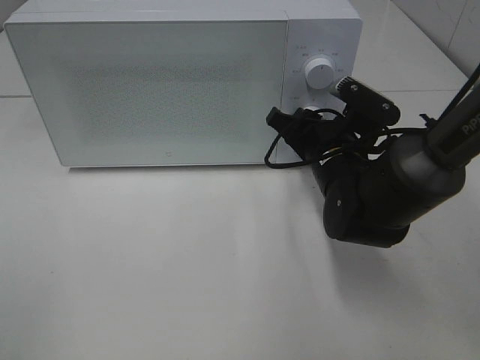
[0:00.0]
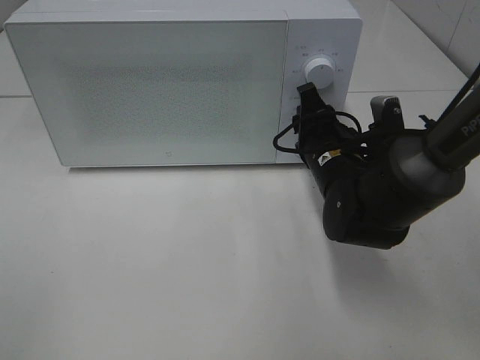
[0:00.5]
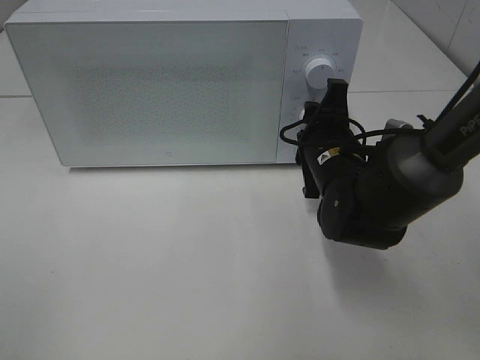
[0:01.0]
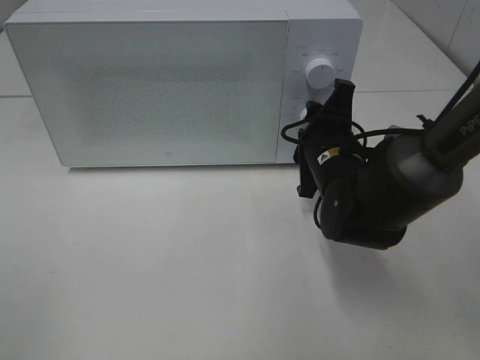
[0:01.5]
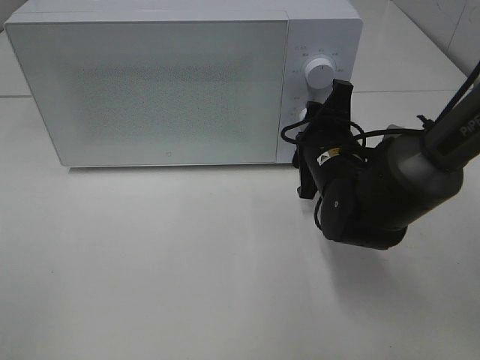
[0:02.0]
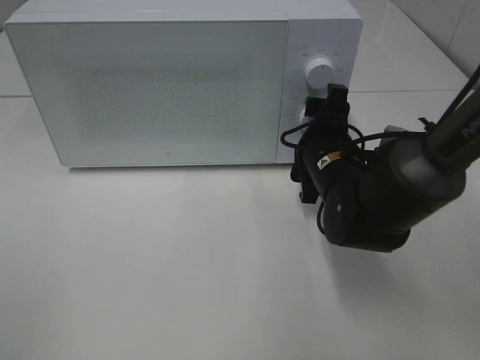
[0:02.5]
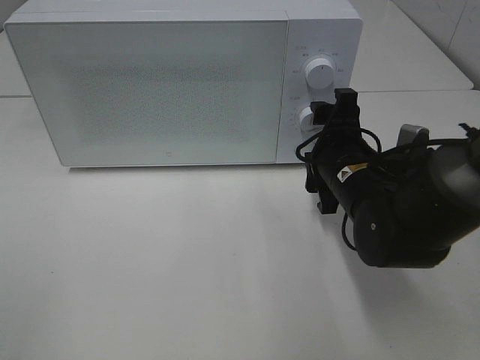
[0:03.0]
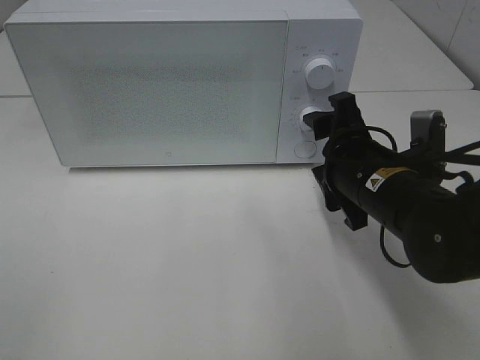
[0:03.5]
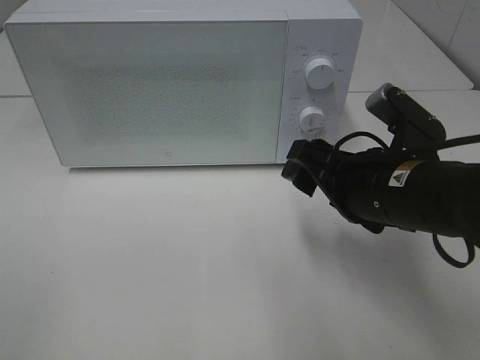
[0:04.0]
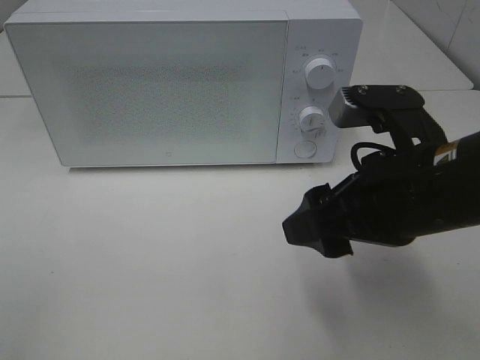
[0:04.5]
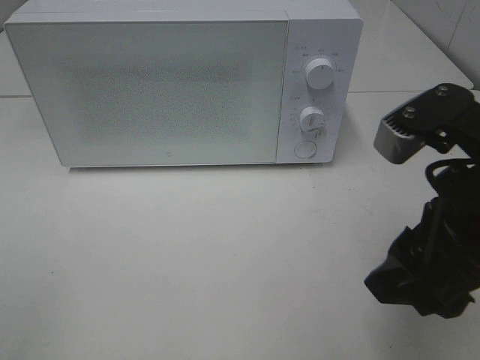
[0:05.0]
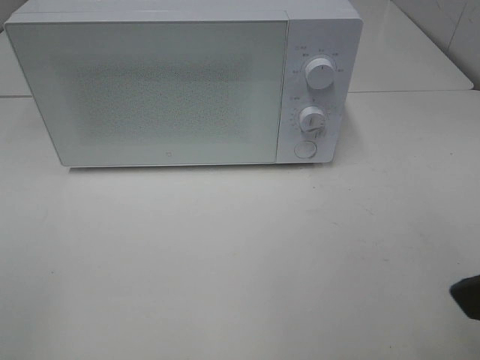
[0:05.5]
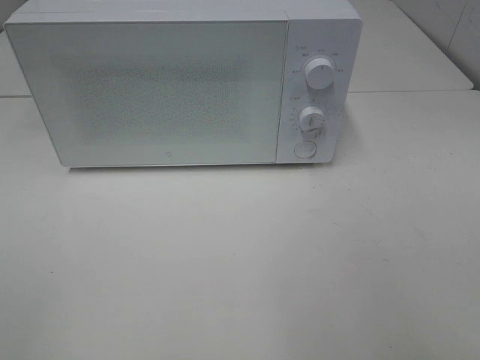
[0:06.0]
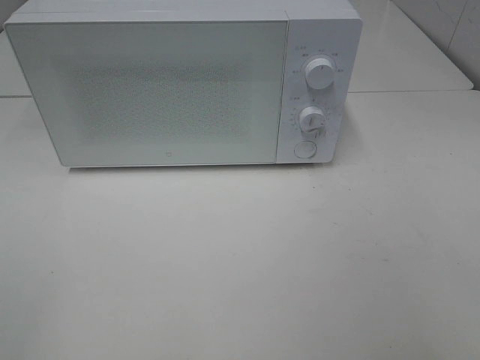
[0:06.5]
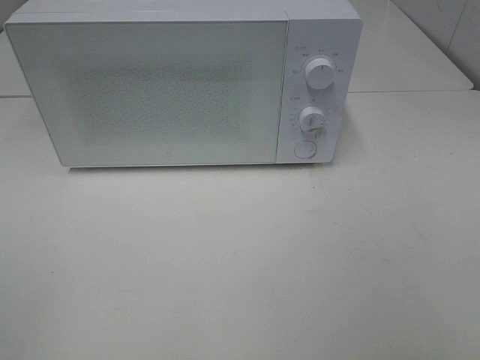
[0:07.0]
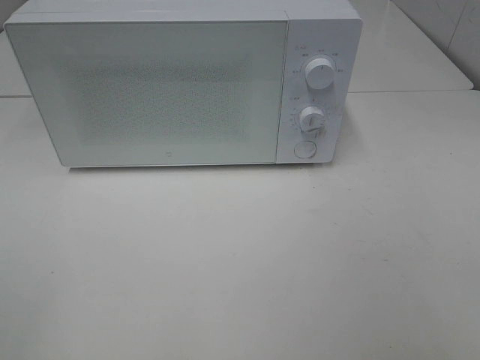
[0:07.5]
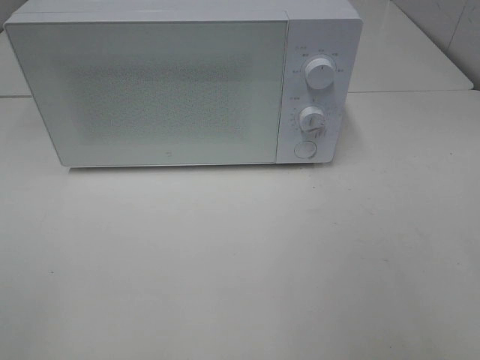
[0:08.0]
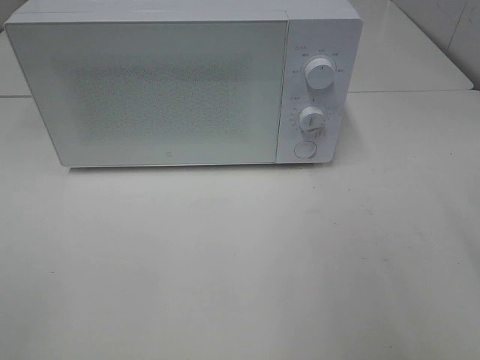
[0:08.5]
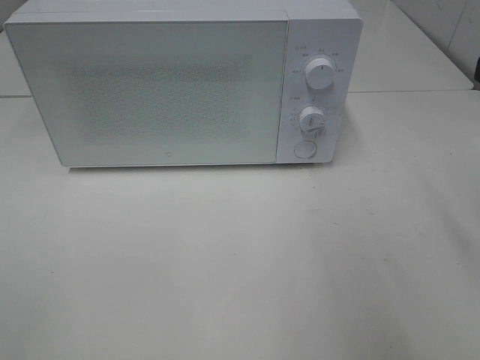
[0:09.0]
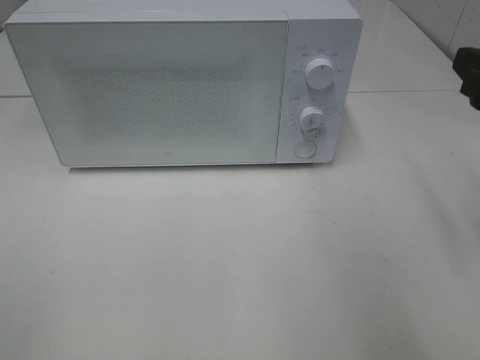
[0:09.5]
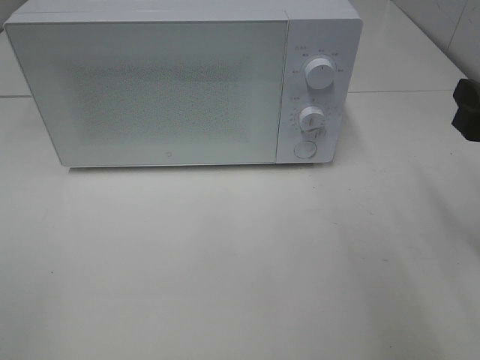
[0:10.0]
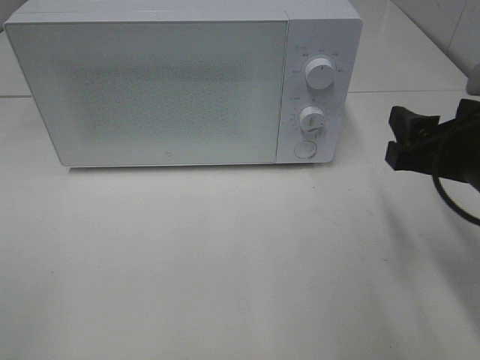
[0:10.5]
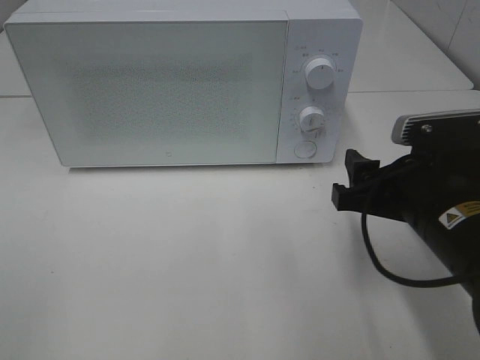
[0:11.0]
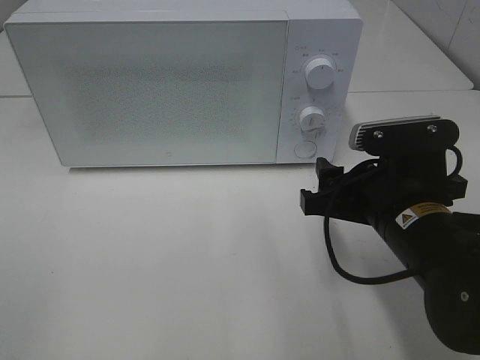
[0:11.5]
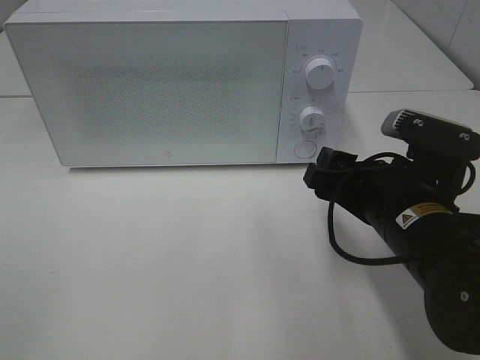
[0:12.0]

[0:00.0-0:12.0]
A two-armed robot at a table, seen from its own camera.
Task of the whole recording: Heat Sandwich.
Step, 0.0 to 3.0 s: Right hand: twist timer button.
2.0 to 4.0 s: The right gripper heads backward and upward, covering some 10 cm.
4.0 to 6.0 s: The right gripper shifts some 25 cm backward, upward and to the right.
8.0 to 10.0 s: The right gripper heads forward and downward, covering about 15 cm.
10.0 to 12.0 s: The right gripper is displaced to the left and downward by approximately 15 cm.

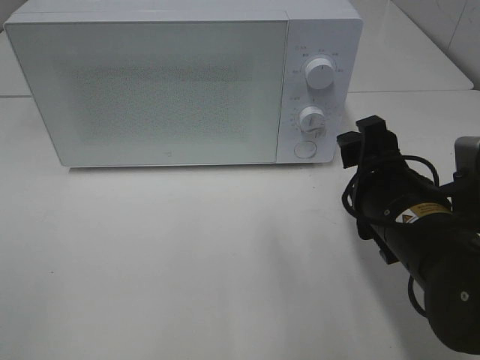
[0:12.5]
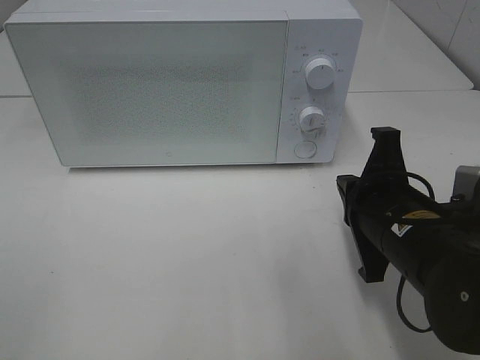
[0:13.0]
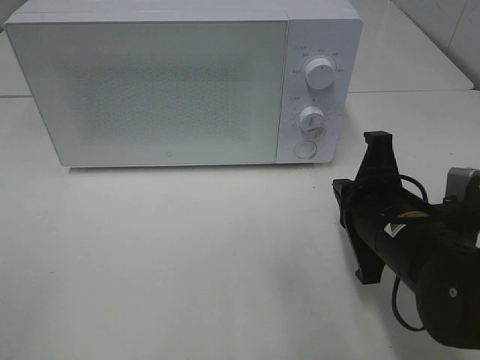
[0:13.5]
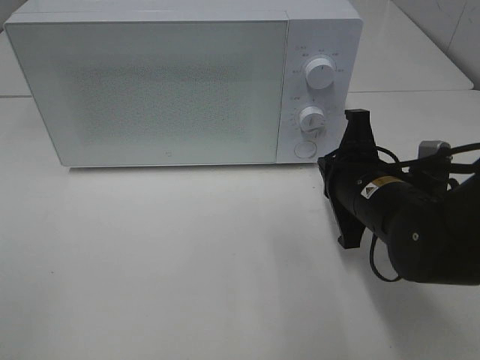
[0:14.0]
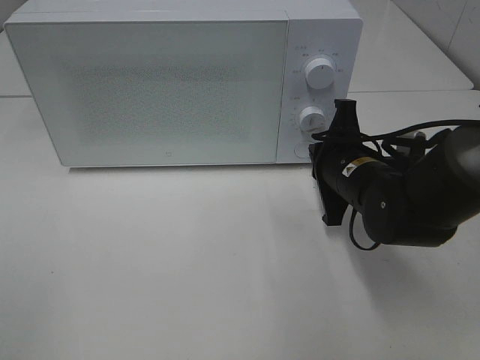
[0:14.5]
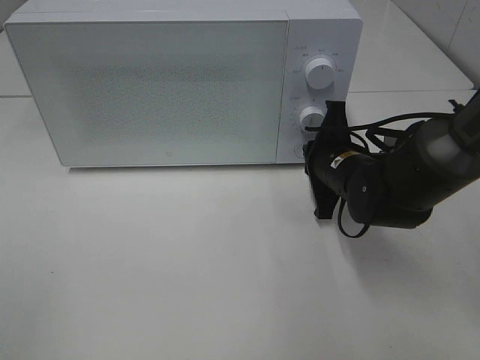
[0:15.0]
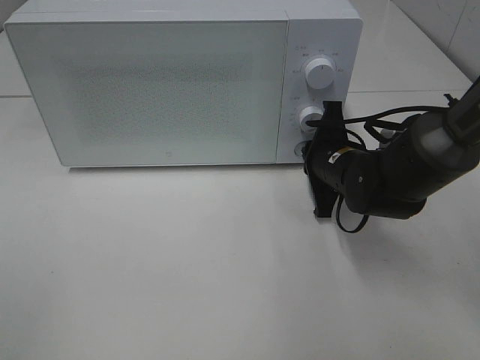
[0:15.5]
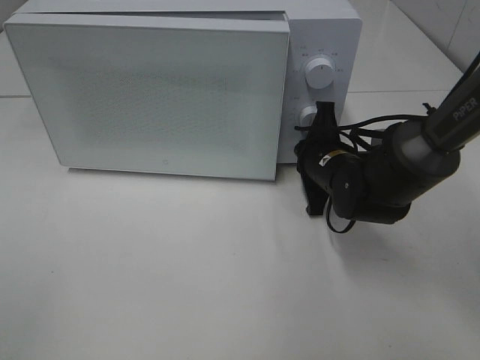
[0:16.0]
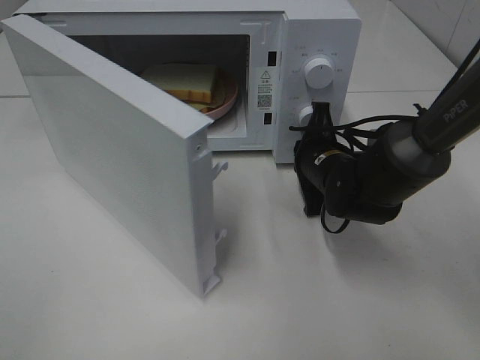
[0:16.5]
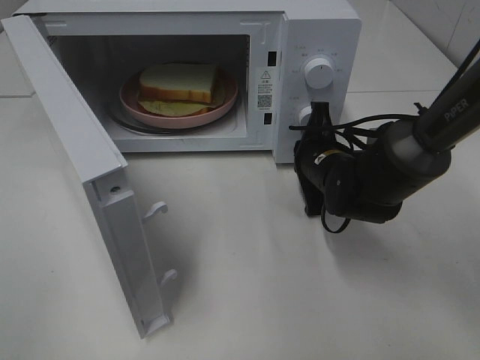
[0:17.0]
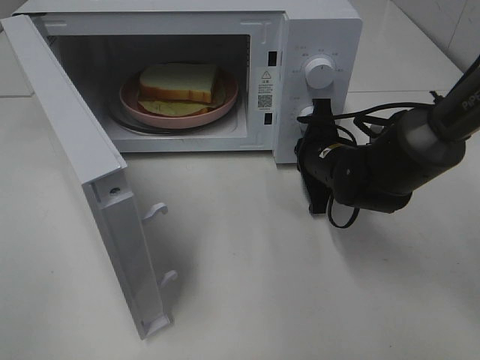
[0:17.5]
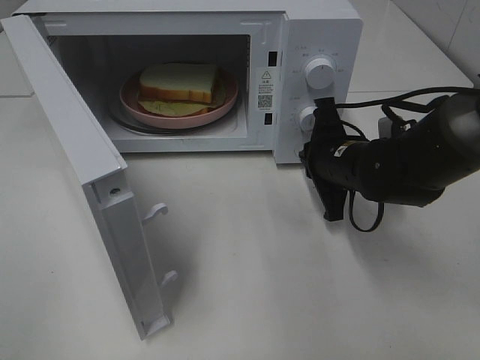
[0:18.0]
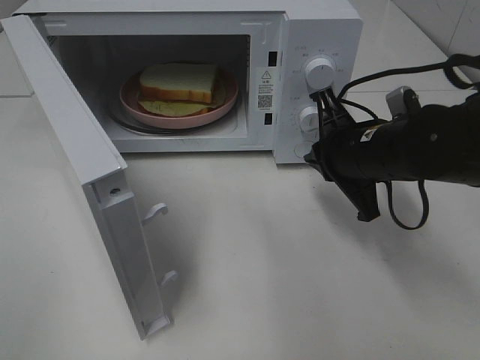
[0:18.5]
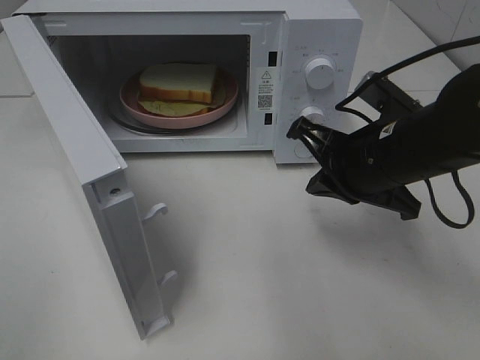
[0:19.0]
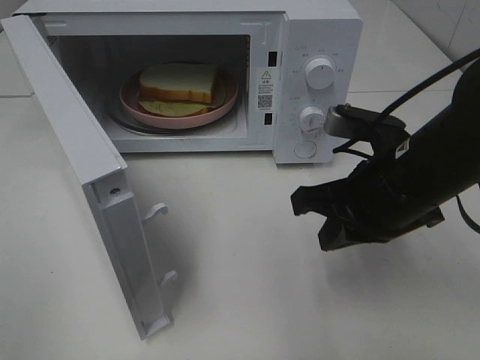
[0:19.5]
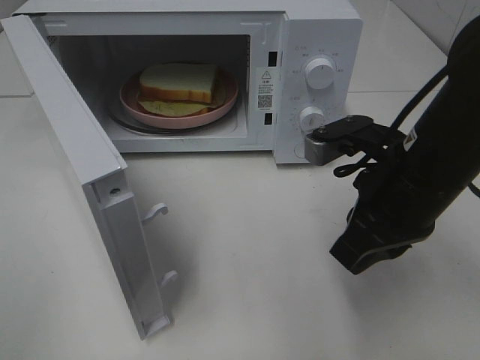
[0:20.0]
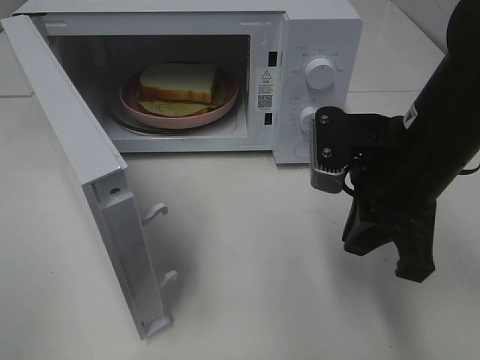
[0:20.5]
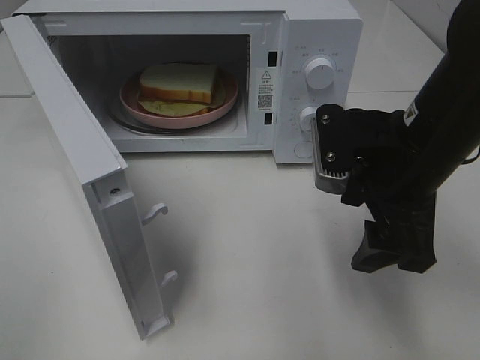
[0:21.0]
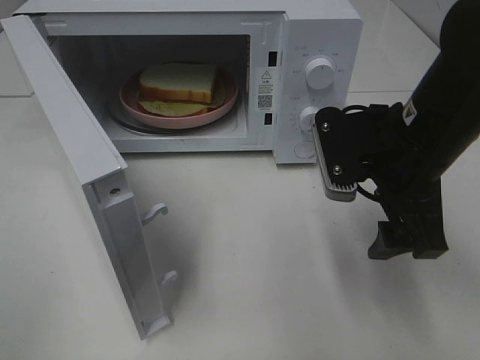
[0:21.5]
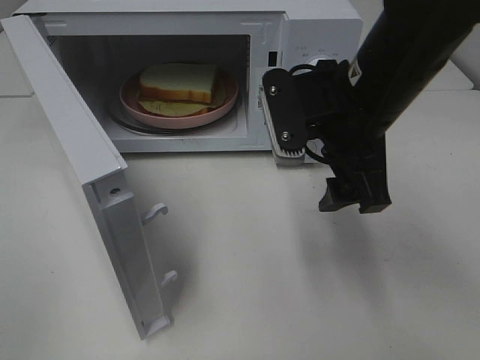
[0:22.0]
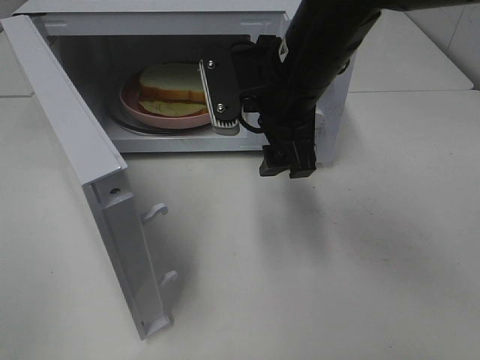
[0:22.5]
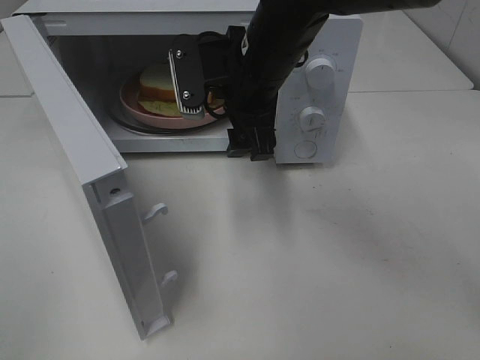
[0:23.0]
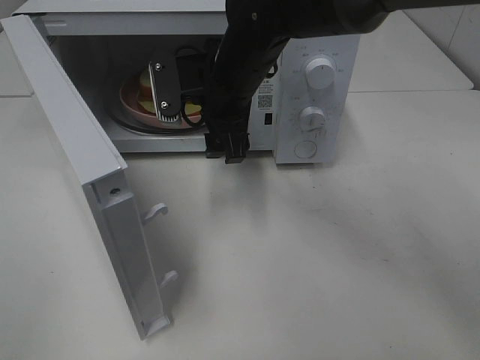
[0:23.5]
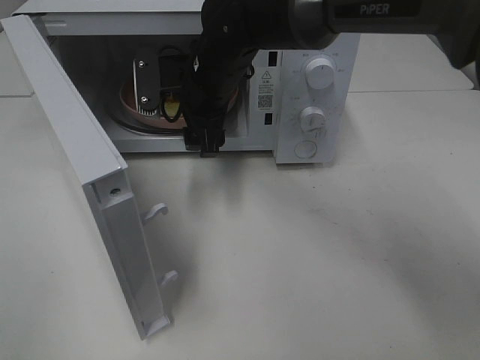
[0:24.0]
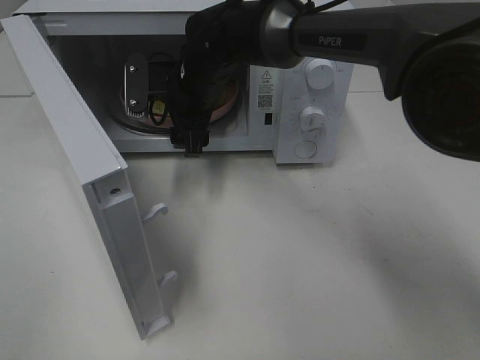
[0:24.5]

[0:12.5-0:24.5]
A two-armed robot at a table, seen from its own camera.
Task of the whole recording: Heat Sandwich.
Step, 12.5 to 17.5 s: Right hand: press the switch.
12.5 to 14.5 s: The right gripper travels forward by approximately 10 cm, and closes up.
14.5 to 16.5 s: The right gripper moves forward, roughly 5 cm.
16.5 to 18.5 s: The right gripper moves upward and backward, about 10 cm.
18.5 to 20.5 s: The right gripper moves backward and upward, about 10 cm.
20.5 to 22.5 s: The right gripper travels to the left and forward by approximately 10 cm, and opens up.
22.5 to 24.5 s: The right gripper is displaced forward, to the left and downward by approximately 15 cm.

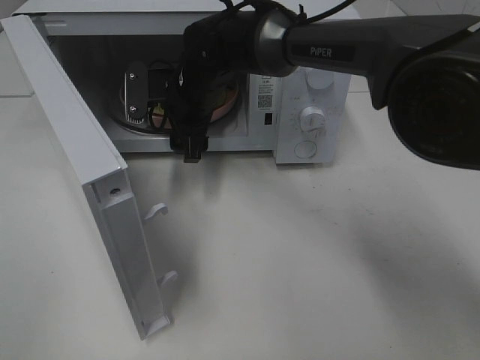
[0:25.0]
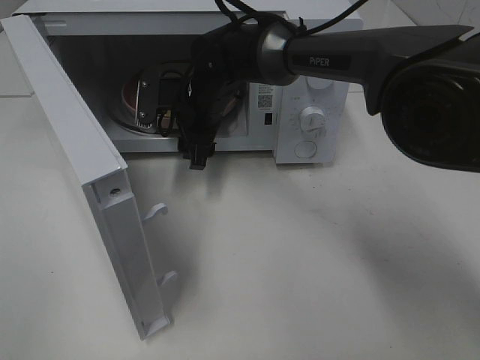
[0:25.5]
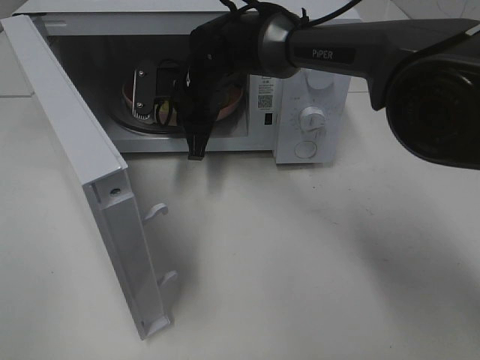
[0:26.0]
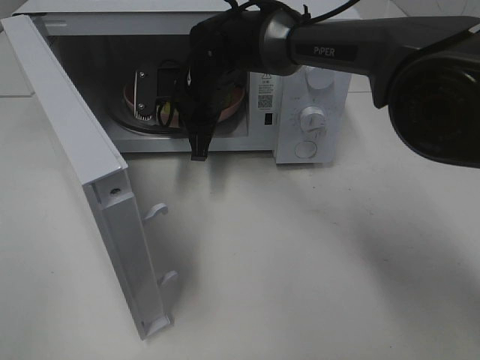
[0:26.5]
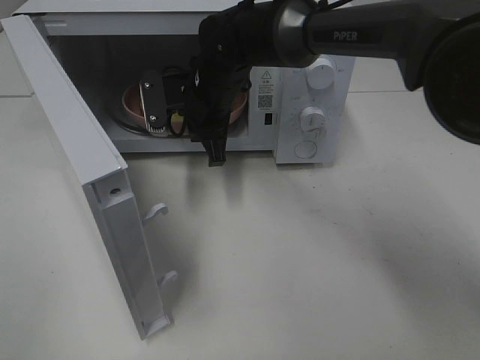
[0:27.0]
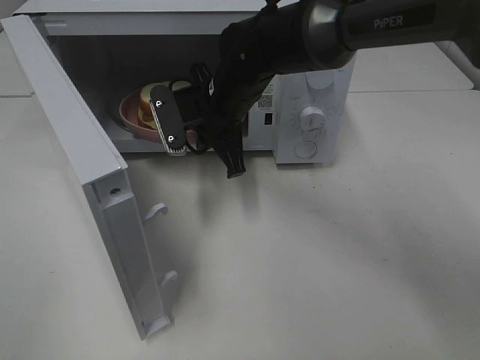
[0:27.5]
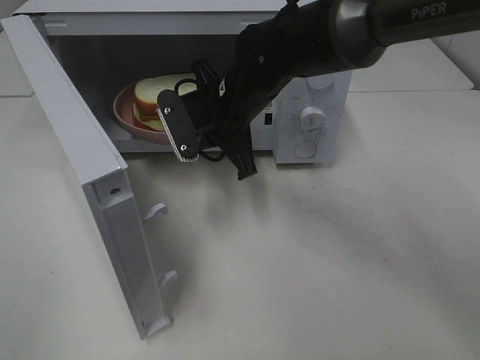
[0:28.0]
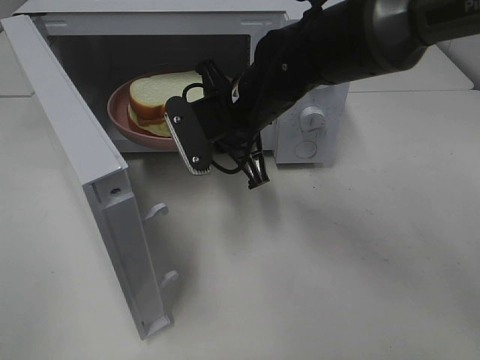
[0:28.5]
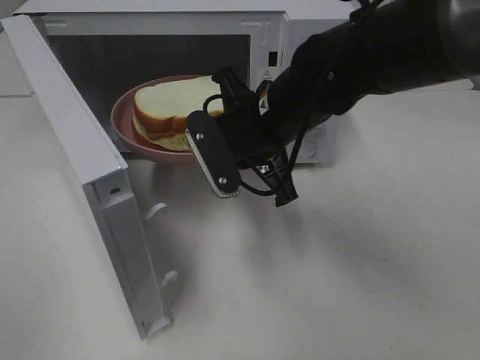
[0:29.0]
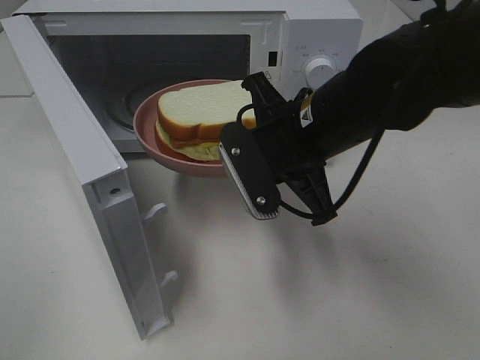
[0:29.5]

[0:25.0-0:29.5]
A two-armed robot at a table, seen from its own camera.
Task of the whole recording: Heat Sandwich.
25.0 to 27.0 s: The right gripper closes its fingers.
27.0 to 29.5 s: The right gripper goes about 20 cm backward and to the right.
